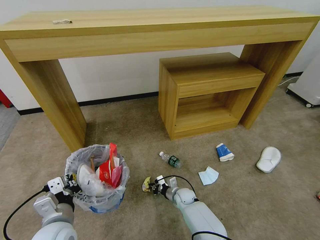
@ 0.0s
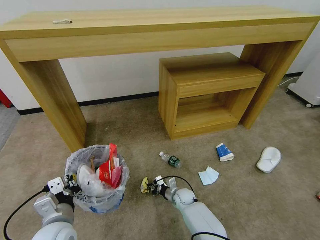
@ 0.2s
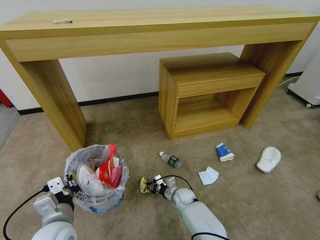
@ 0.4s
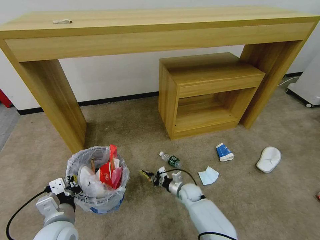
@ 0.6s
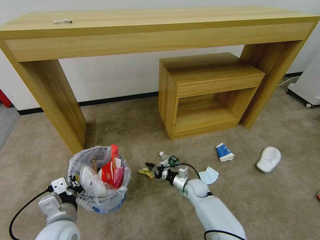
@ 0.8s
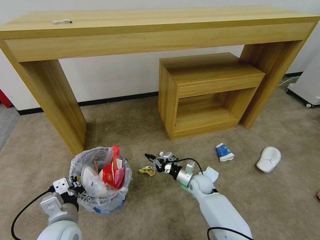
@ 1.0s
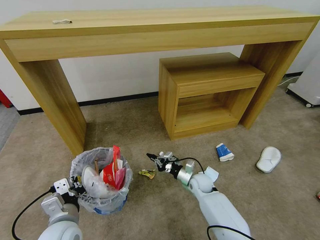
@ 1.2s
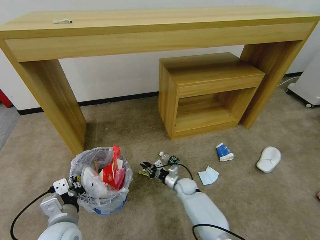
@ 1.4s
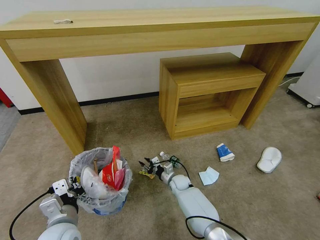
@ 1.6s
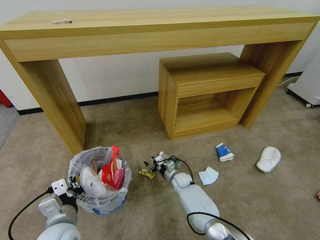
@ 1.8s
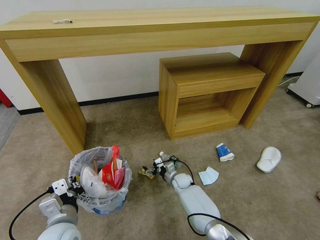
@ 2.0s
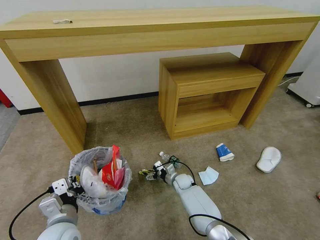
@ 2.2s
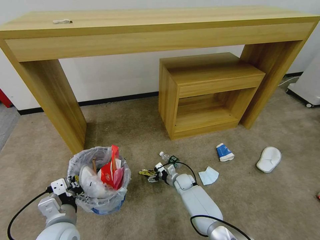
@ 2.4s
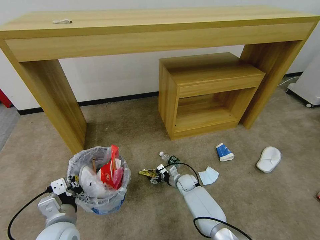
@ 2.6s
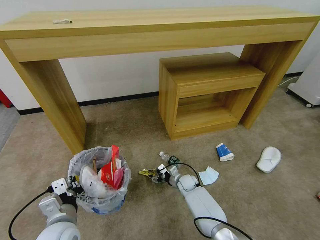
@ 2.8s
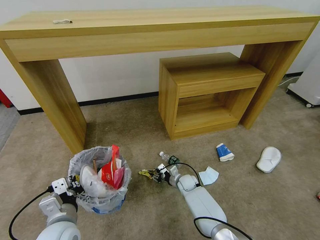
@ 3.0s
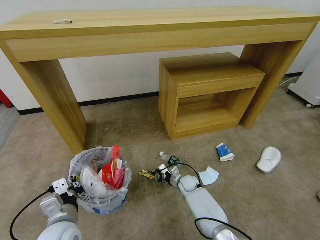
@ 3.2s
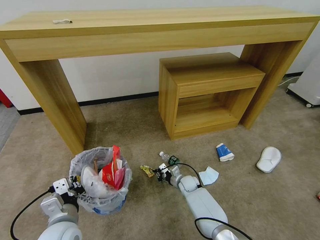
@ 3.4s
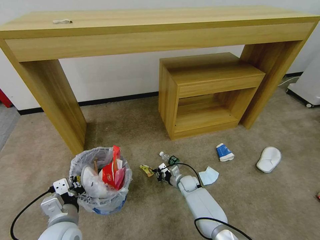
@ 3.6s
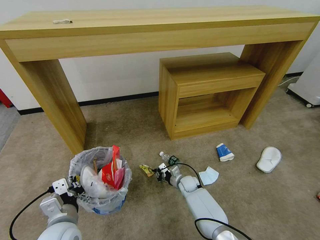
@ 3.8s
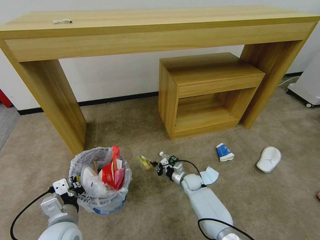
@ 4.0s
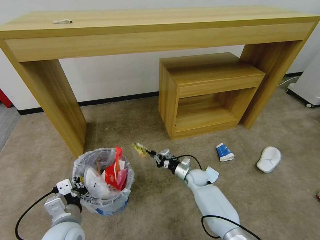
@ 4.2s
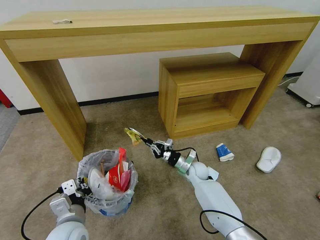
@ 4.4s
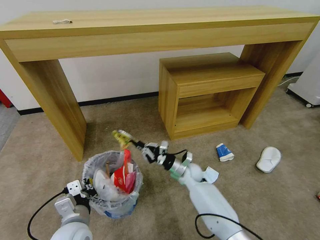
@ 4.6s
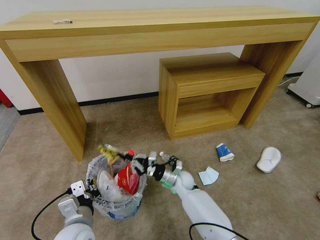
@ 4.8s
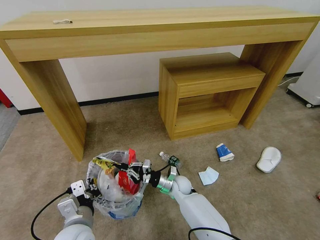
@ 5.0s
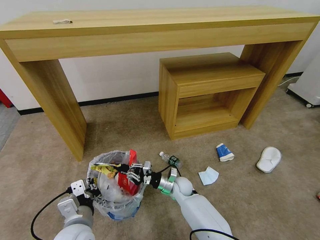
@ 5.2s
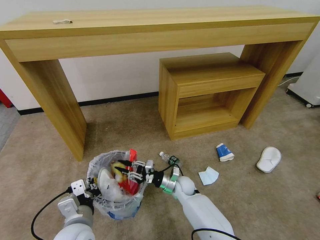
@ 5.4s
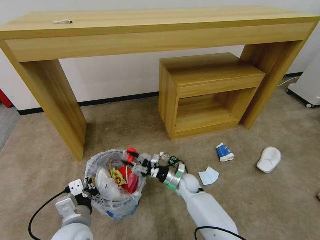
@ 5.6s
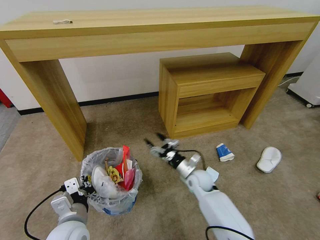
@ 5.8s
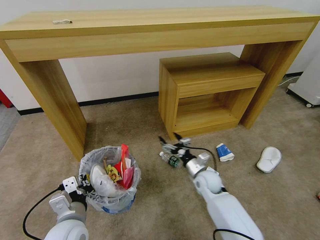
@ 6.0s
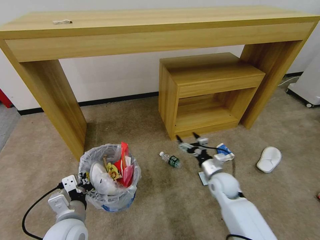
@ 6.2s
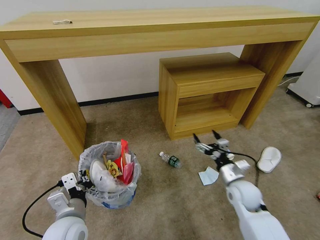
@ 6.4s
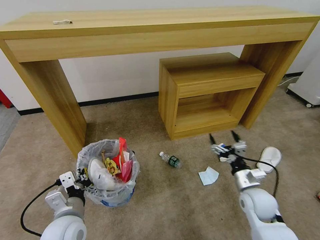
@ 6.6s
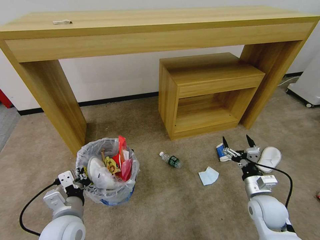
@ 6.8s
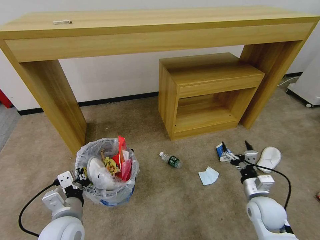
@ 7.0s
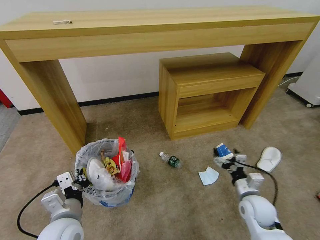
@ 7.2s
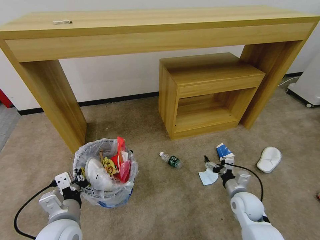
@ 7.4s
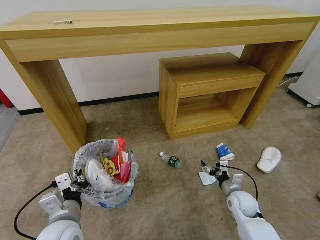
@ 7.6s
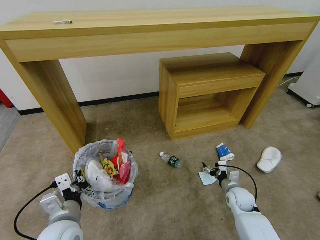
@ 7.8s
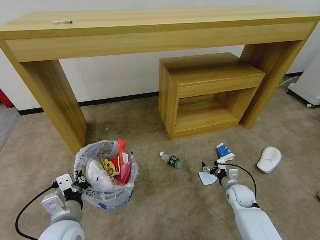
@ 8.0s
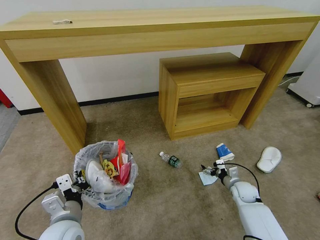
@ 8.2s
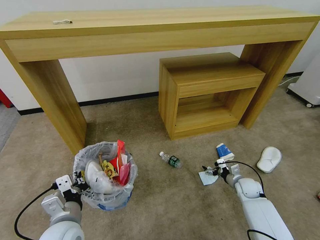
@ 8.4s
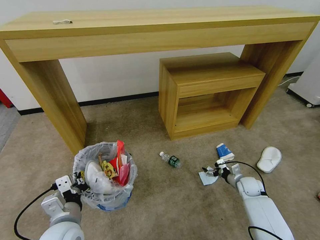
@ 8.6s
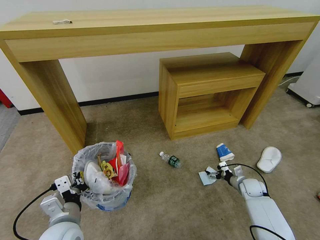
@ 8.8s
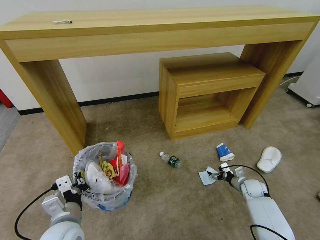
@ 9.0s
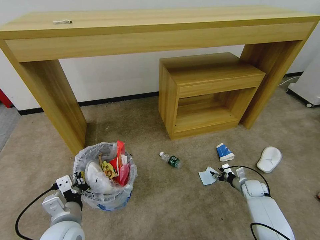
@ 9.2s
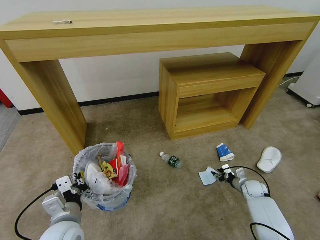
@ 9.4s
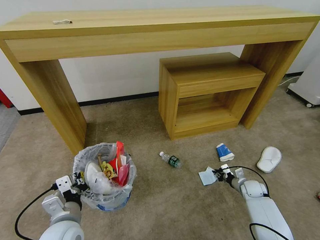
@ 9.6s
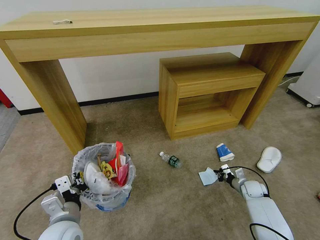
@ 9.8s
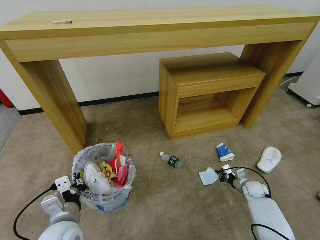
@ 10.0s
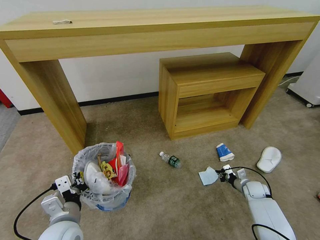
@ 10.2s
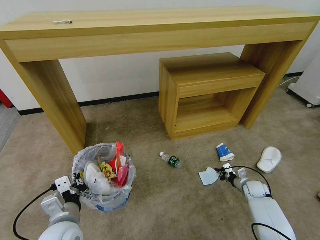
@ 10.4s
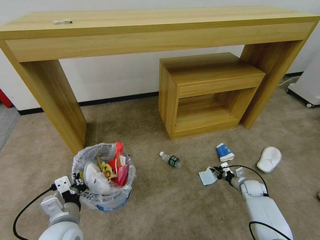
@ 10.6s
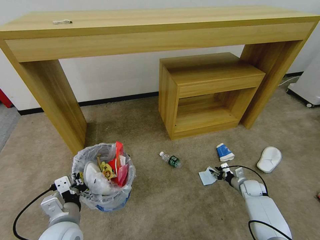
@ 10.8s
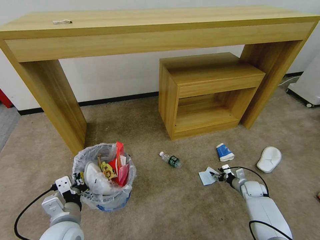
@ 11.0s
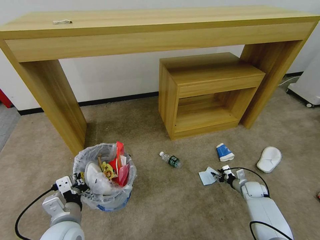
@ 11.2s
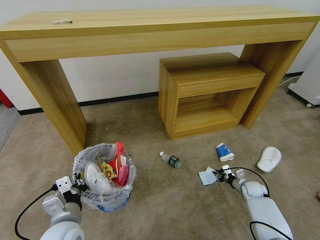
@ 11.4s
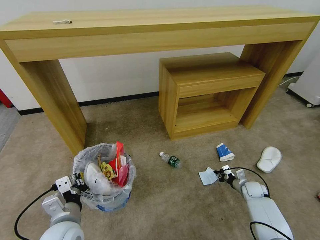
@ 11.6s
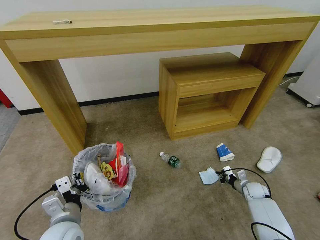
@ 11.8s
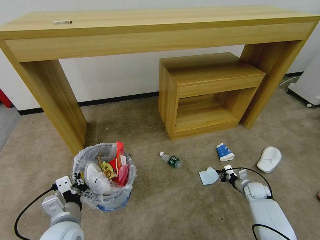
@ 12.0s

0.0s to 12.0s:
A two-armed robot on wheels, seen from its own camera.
Task of the whole recording: Pick up the trash bin and place the garbage on the floor into it.
0.0s to 1.6s: The right gripper heads forward, covering some 5 cm, travels upward and back again, some 10 cm each way, and opens up.
1.6s to 3.0s: The right gripper opens, then closes once more.
3.0s to 4.4s: The right gripper travels upward by approximately 10 cm, and closes.
4.4s to 6.0s: The right gripper heads backward, covering roughly 5 cm, moves roughly 10 cm to the left and comes back, and opens up.
6.0s to 7.6s: The right gripper moves to the right and backward, roughly 15 cm.
7.6s to 9.0s: The right gripper is displaced to the right, forward and downward by roughly 15 cm.
9.0s to 10.4s: The right gripper closes.
10.4s to 12.0s: The right gripper opens, then closes again.

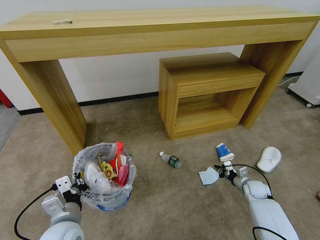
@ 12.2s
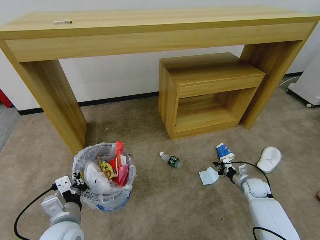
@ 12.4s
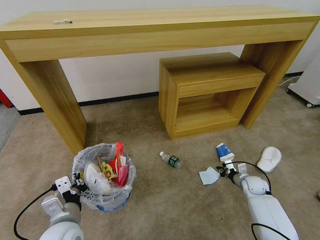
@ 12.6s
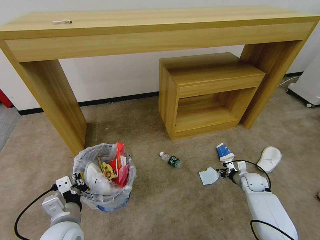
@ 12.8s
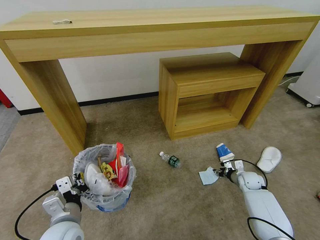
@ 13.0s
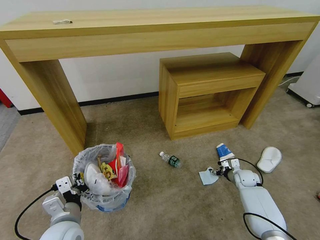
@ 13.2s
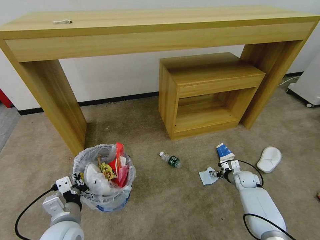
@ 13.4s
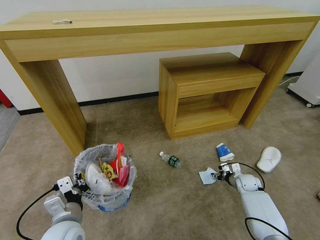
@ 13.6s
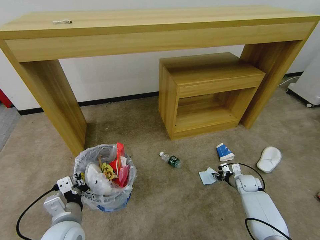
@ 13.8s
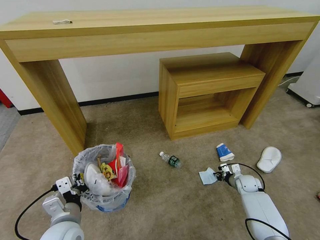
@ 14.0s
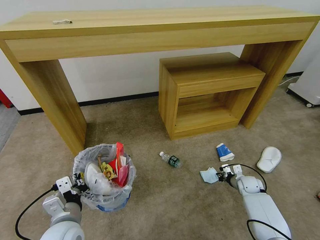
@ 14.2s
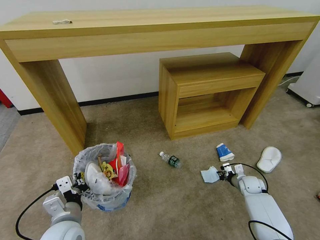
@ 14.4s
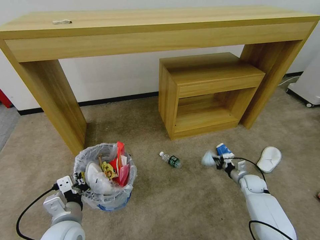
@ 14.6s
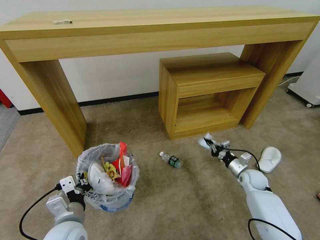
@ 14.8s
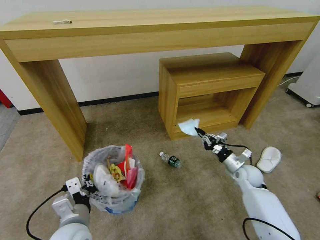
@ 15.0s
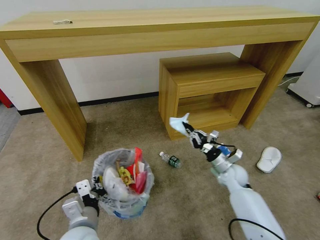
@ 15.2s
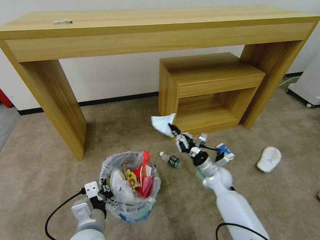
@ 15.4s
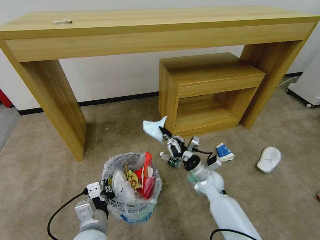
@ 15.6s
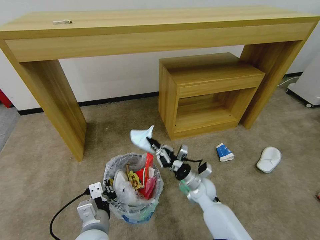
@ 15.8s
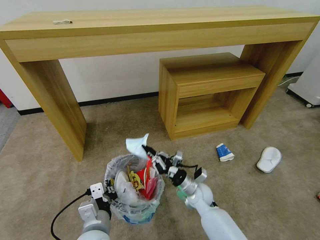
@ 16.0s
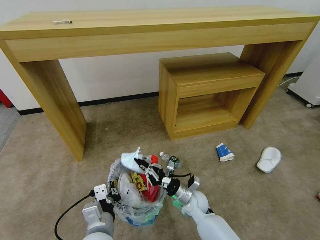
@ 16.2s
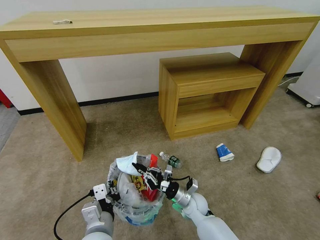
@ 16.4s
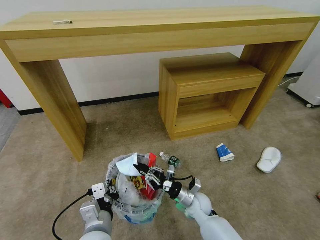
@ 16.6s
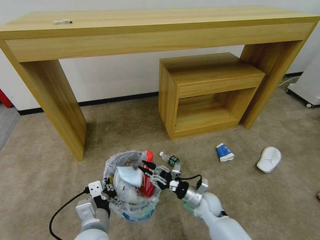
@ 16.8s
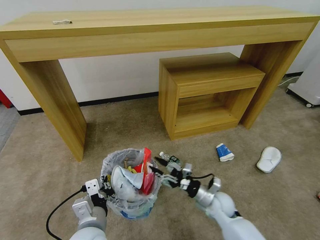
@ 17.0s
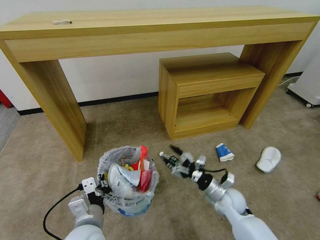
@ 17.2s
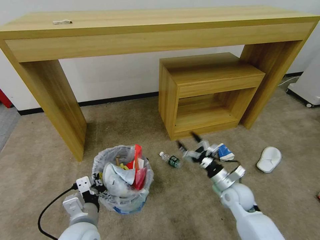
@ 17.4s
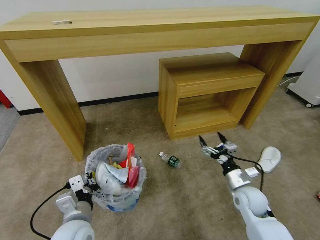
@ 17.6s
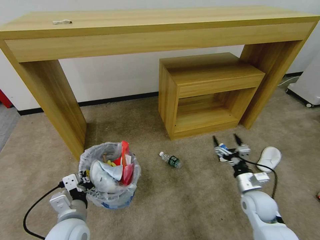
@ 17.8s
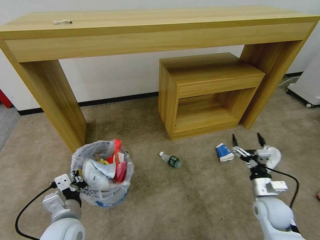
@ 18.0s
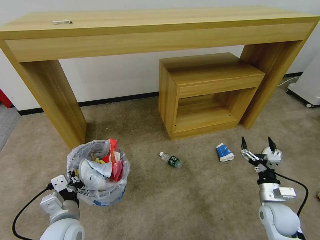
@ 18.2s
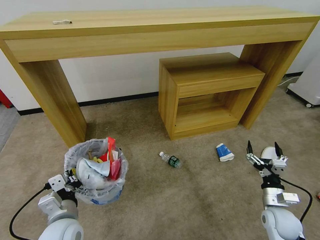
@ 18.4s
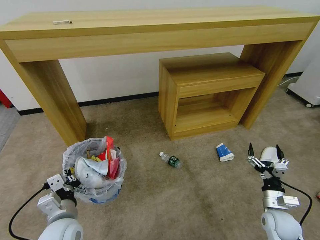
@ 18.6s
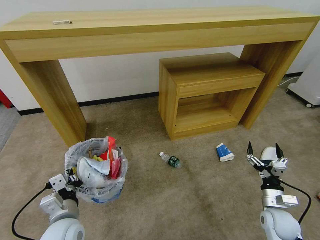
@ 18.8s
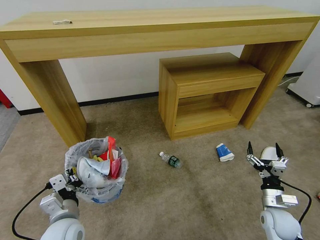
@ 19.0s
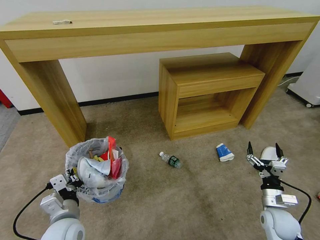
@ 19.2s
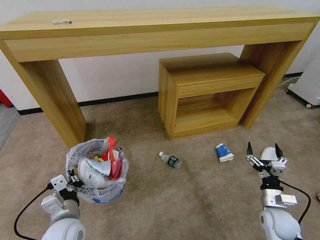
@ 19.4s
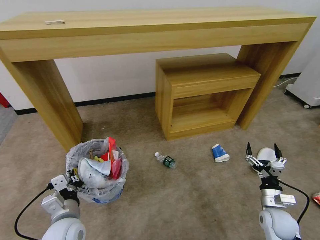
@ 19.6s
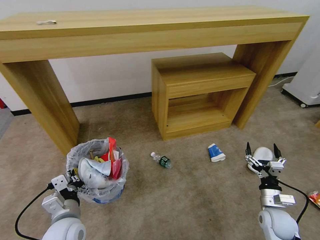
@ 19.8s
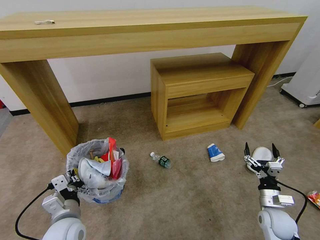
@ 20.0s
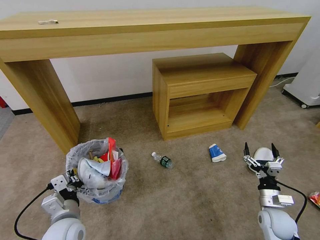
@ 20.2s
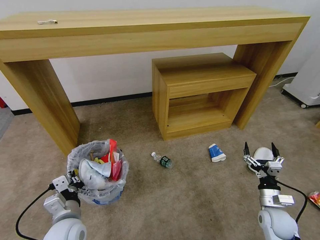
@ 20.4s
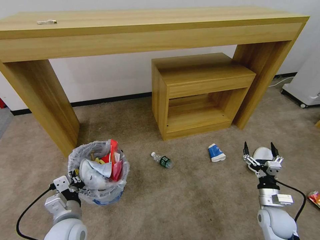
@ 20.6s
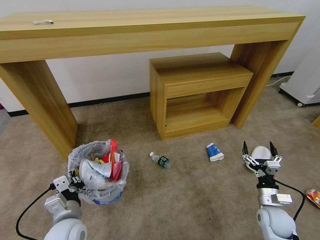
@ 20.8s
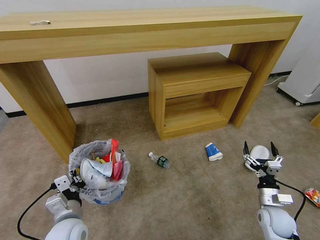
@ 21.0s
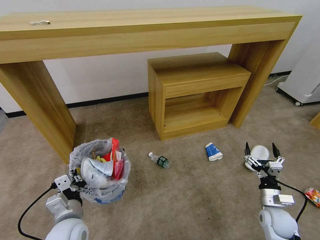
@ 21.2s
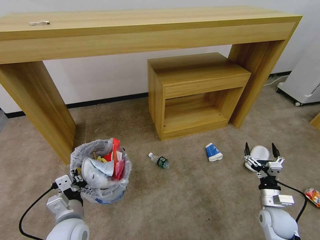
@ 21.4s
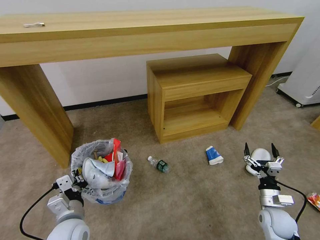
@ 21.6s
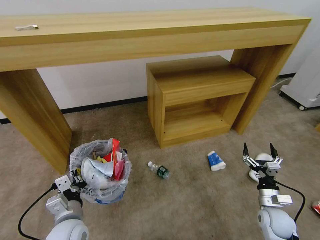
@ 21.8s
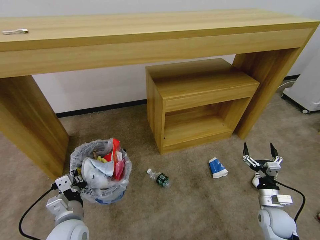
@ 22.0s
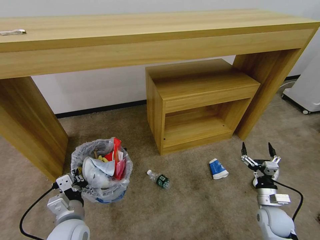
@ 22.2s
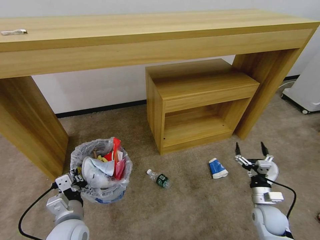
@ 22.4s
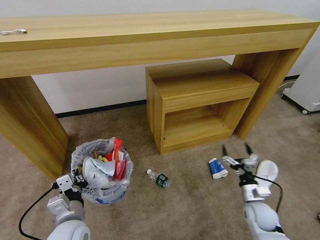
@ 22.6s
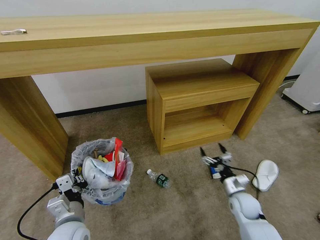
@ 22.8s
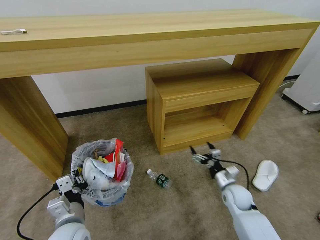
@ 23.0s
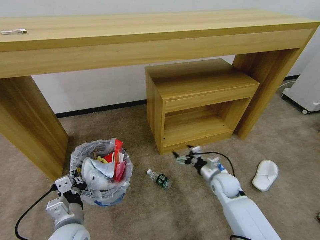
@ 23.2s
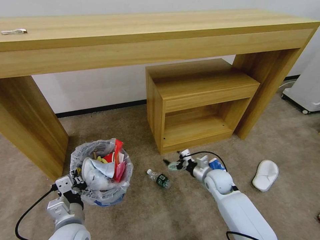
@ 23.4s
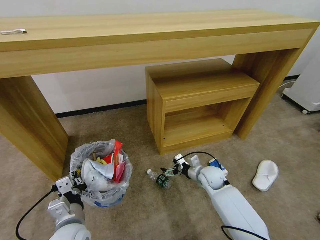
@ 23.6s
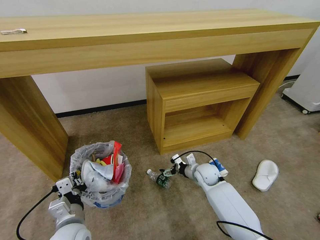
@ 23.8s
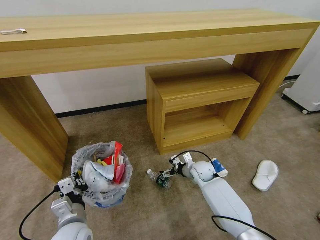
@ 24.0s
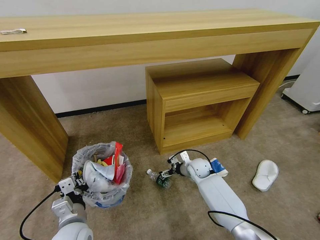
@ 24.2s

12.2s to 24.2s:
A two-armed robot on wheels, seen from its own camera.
Task of the whole recording: Pick up the trash bin and place the garbage on the floor into it.
12.2s to 13.8s: The right gripper opens its fingers.
13.8s to 15.2s: The right gripper heads upward and to the left, covering about 15 cm, and closes up.
15.2s to 16.6s: The right gripper is displaced to the left, backward and downward by about 20 cm.
16.6s to 18.2s: The right gripper travels to the right by roughly 25 cm, and opens up; the left gripper goes some 10 cm to the left.
18.2s to 19.8s: The grippers stay close to where they were, moving slightly.
19.8s to 21.2s: Both grippers stay about where they are.
21.2s to 22.6s: The right gripper ends up about 5 cm from where it was.
22.6s to 24.2s: The right gripper heads forward and to the left, covering about 25 cm.
